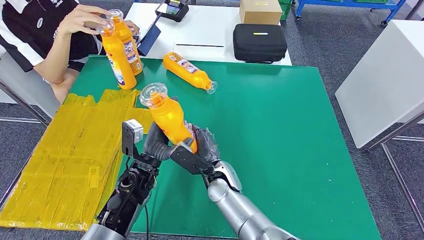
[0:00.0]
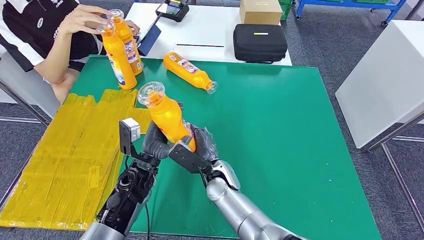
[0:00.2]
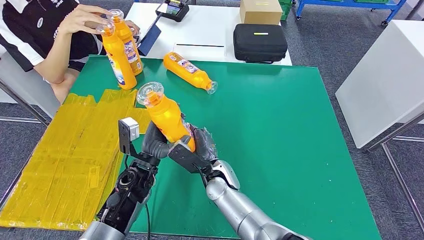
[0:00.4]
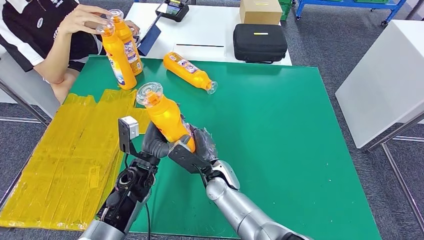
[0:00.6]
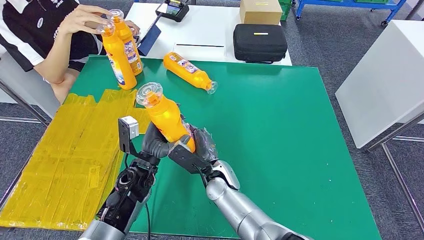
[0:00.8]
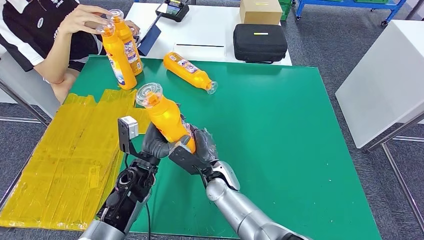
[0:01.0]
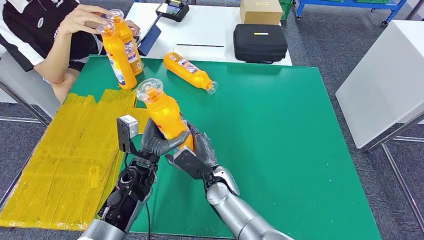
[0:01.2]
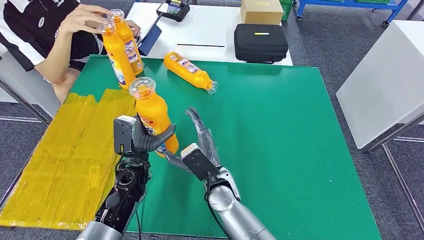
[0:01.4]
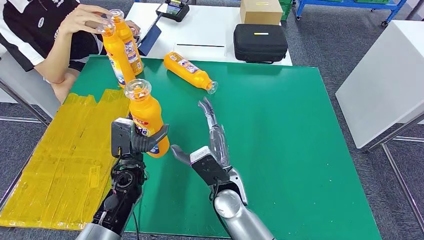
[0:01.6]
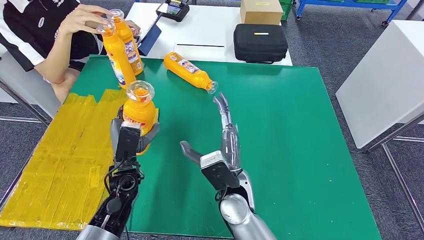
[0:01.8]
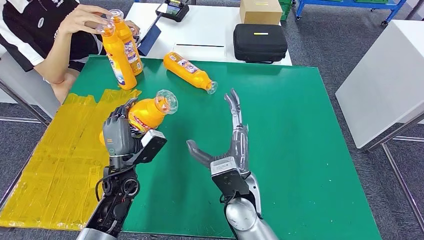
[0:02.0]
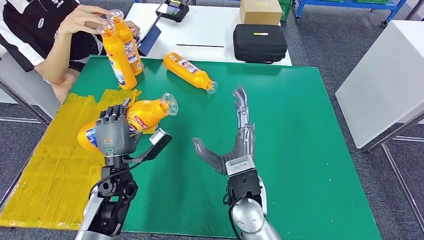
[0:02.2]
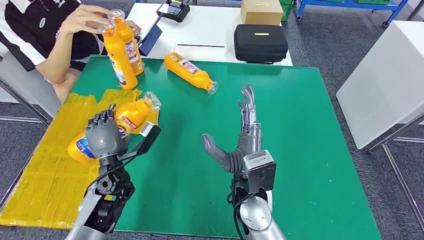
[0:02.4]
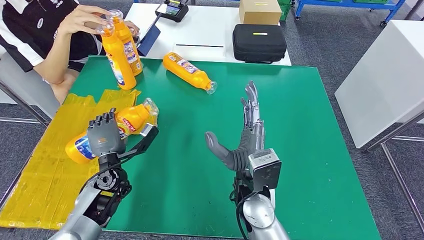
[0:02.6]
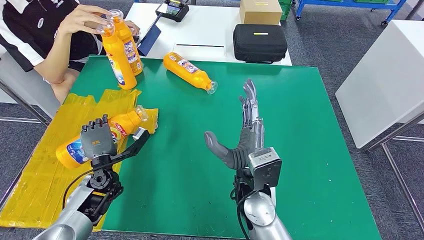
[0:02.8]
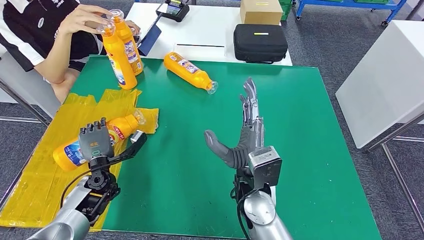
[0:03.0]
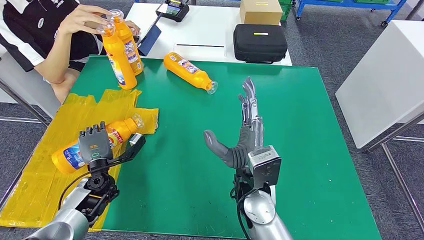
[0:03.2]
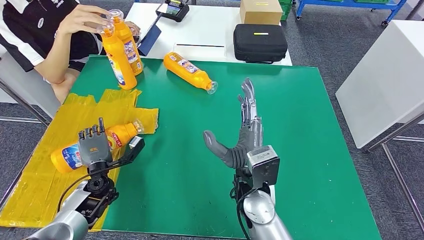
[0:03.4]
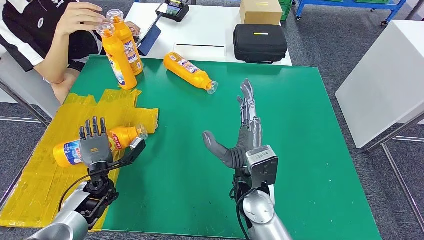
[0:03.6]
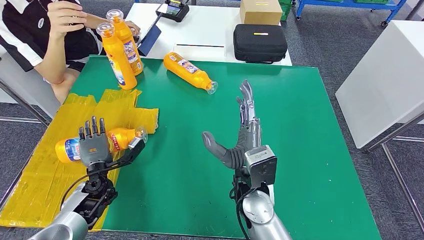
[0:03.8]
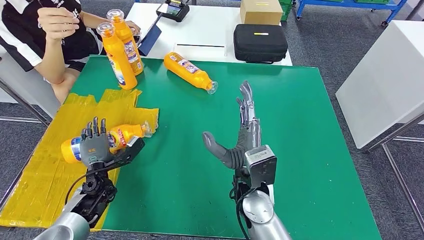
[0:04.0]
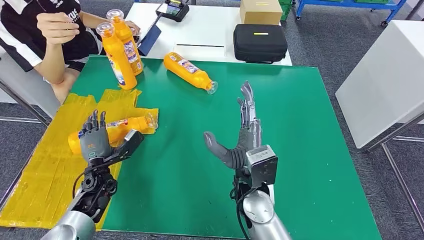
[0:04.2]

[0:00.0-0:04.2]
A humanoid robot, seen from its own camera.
Step, 0:00.0 to 0:04.0: Flip the fast-moving consumer goods bottle to the front side.
0:01.4 to 0:02.8: The left hand is displaced to the left by roughly 10 cm; the right hand heads upward and to the right, covering some 10 cm.

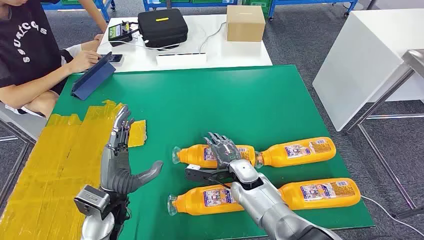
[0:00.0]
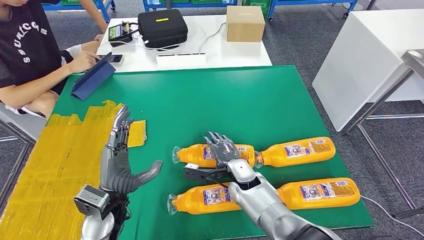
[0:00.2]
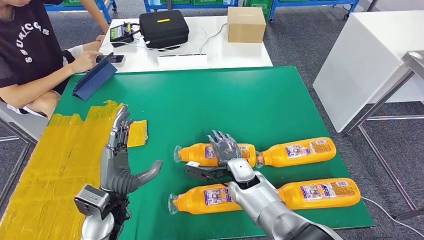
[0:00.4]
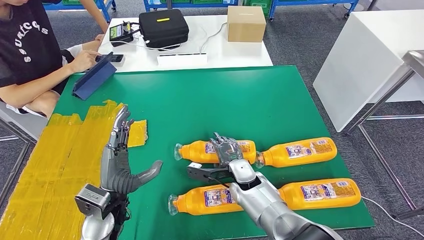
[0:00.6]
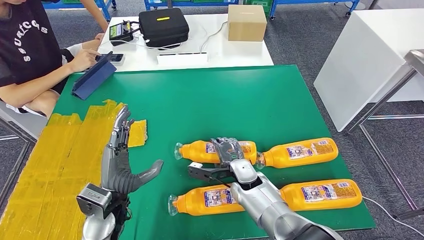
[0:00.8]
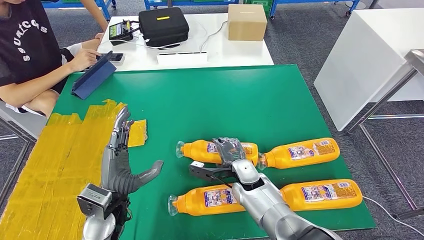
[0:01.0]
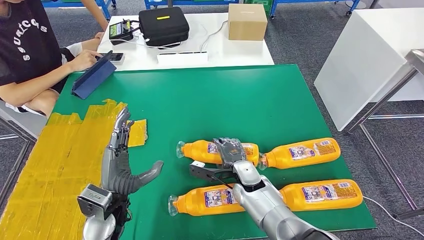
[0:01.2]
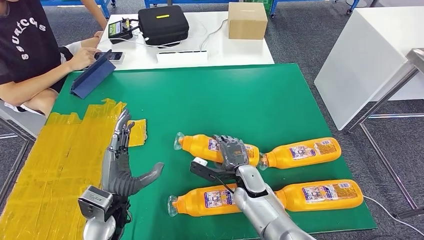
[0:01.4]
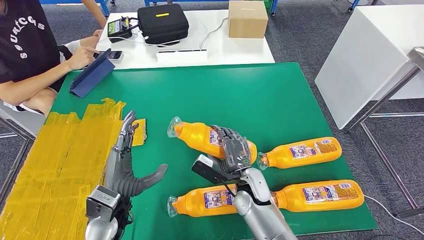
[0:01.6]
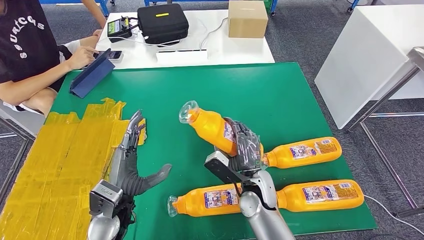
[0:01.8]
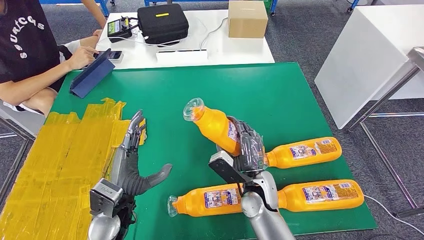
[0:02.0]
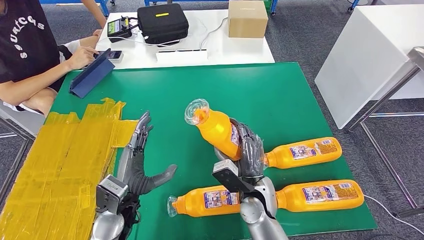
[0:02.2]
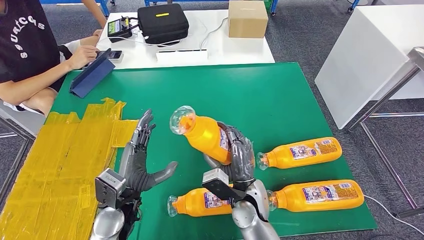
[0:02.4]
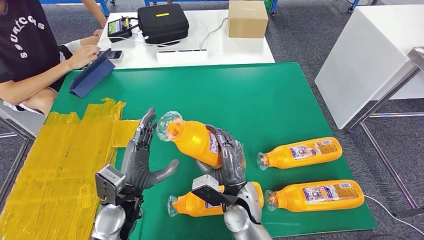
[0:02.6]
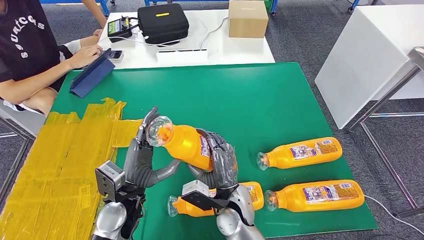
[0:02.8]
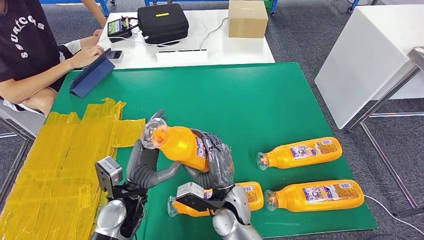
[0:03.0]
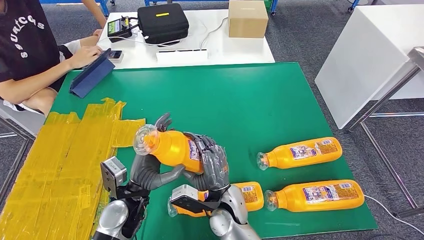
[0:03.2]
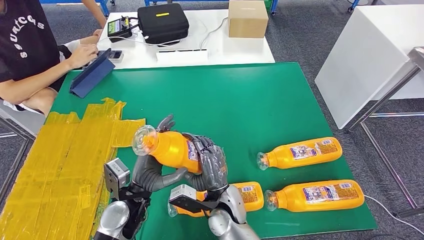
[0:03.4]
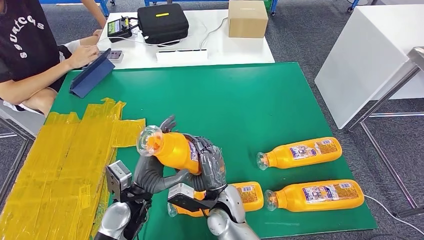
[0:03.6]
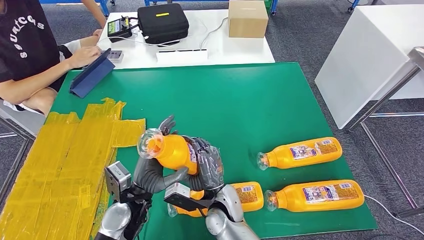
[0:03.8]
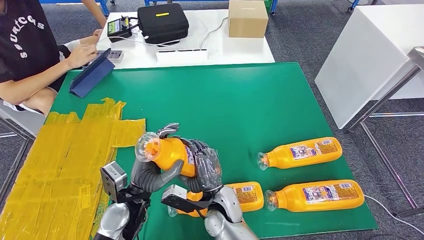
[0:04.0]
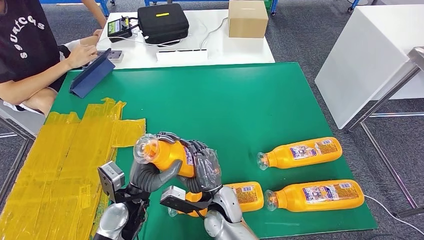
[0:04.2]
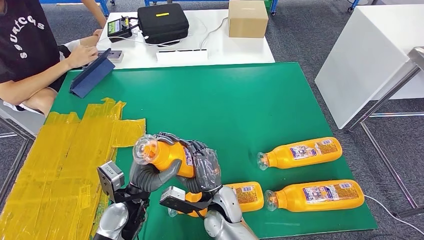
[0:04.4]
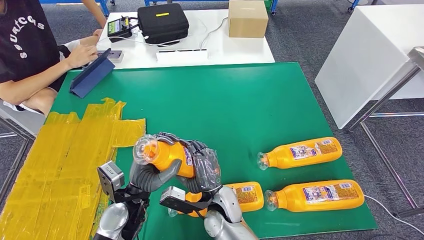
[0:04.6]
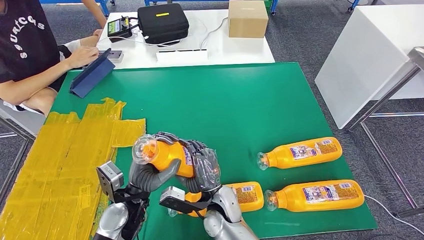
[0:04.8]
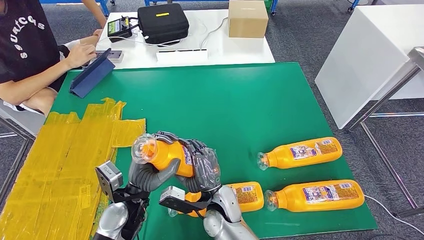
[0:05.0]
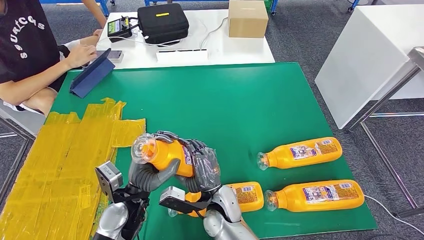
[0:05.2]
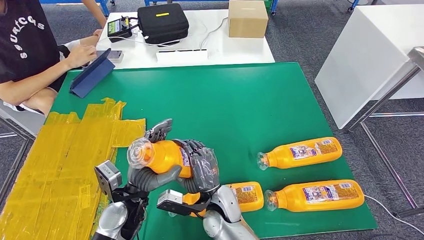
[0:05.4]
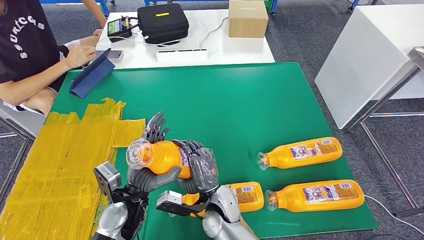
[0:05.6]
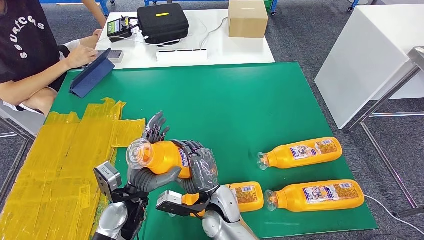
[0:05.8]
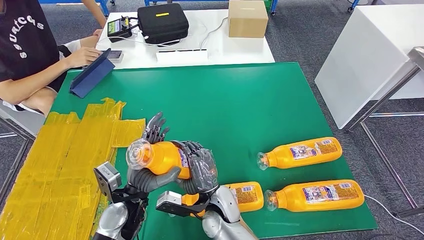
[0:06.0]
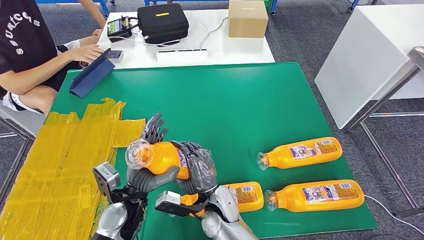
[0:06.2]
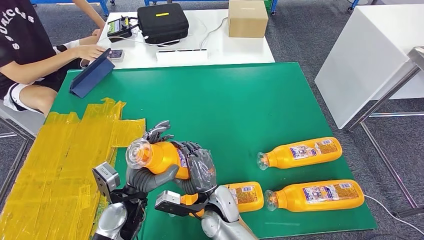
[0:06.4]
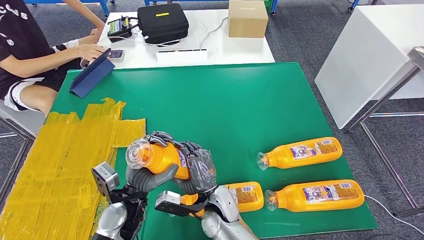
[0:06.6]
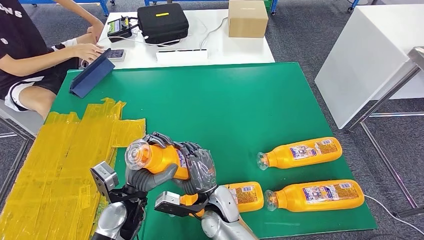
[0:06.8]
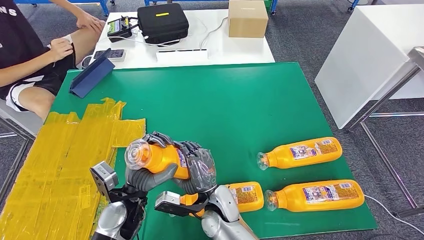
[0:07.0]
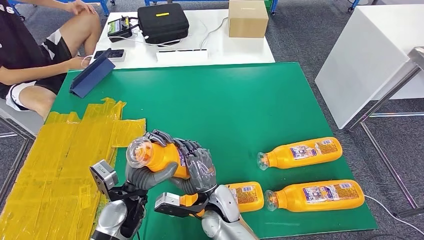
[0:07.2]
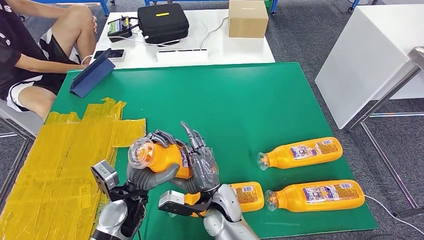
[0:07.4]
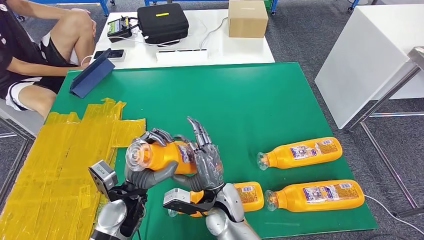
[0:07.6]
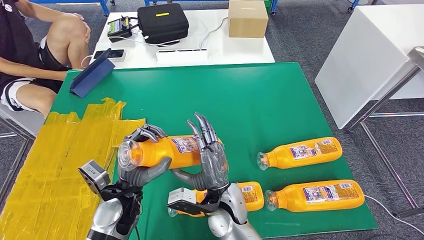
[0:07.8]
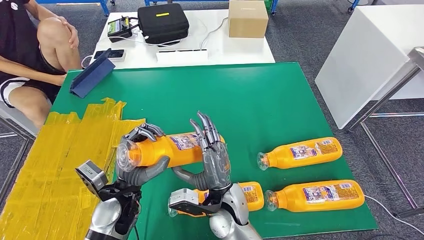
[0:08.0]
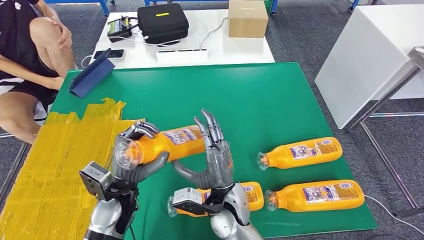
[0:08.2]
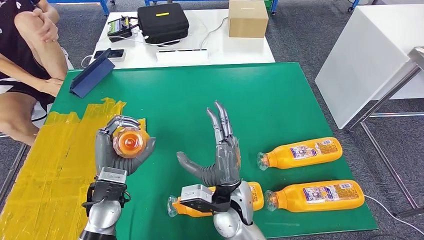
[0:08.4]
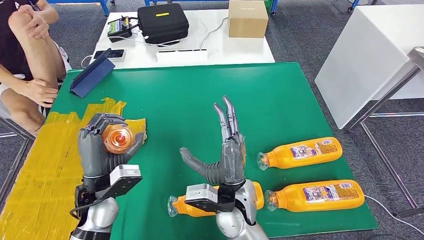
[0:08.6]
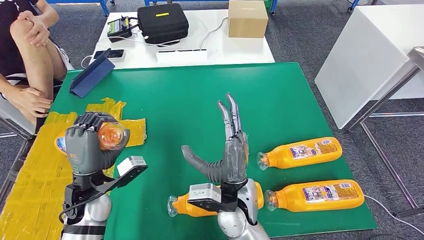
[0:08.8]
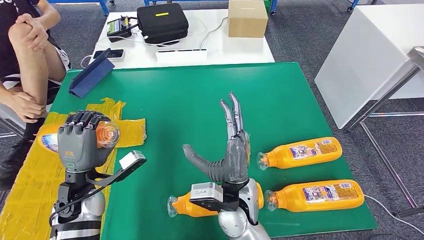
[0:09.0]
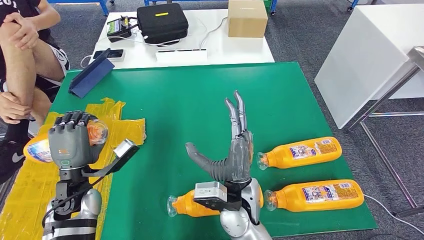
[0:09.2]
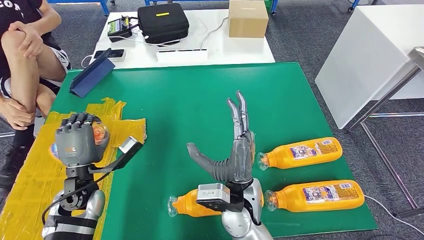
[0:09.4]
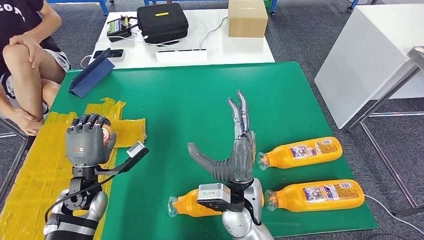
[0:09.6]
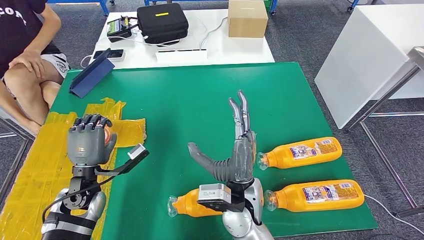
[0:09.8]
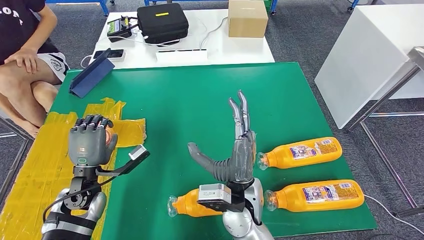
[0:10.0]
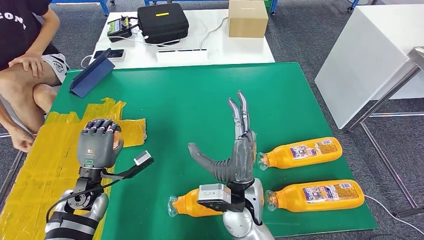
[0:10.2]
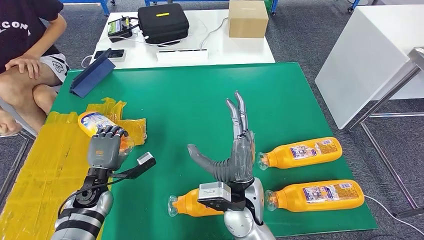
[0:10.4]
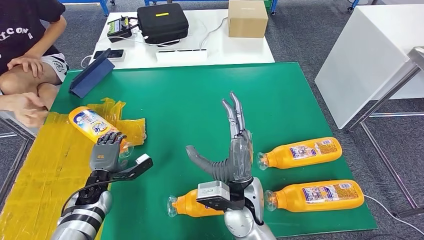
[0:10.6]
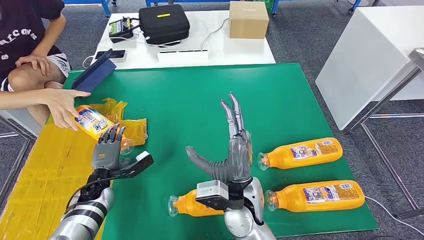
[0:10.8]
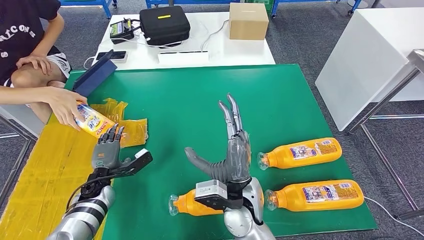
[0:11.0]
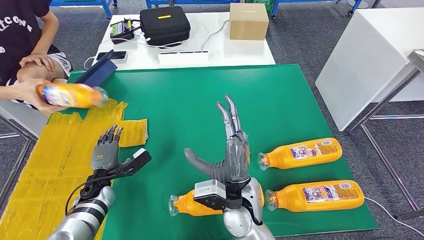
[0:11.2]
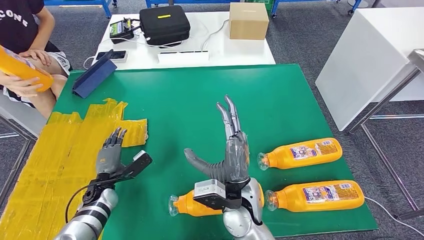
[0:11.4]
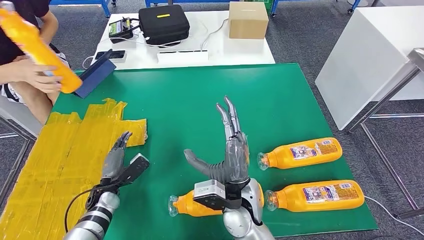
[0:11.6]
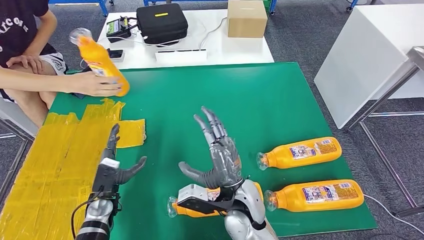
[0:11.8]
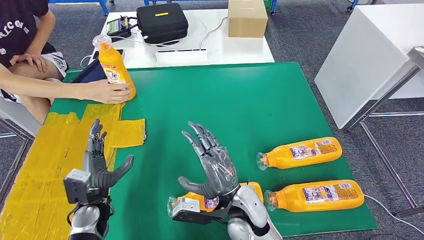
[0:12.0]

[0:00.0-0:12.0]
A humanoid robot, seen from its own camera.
Step, 0:00.0 to 0:02.6: Take the fast-moving consumer goods bottle from the table.
Step, 0:03.0 to 0:11.6: Flip the fast-moving consumer goods bottle to the front side.
0:01.6 to 0:03.0: The right hand travels to the left by approximately 5 cm.
0:03.0 to 0:04.4: The hands make only small movements.
0:04.4 to 0:06.0: Both hands stay put.
0:06.0 to 0:07.6: There are only small adjustments of the hands.
0:09.0 to 0:10.4: The left hand travels downward by approximately 10 cm.

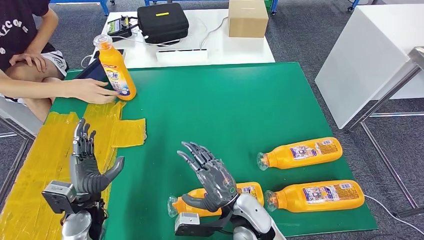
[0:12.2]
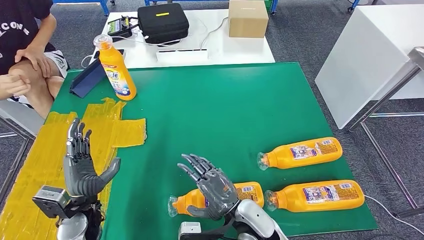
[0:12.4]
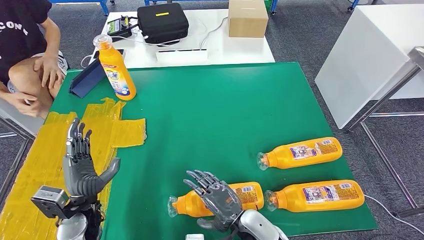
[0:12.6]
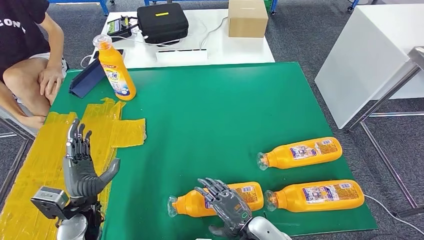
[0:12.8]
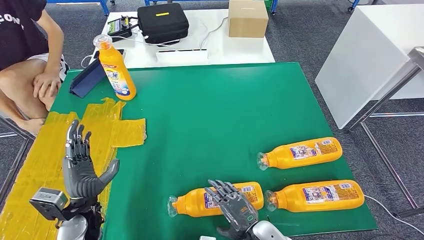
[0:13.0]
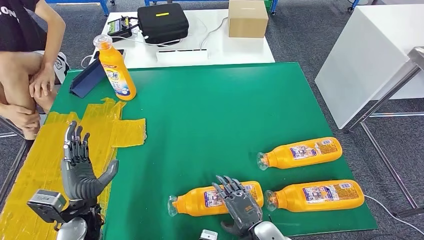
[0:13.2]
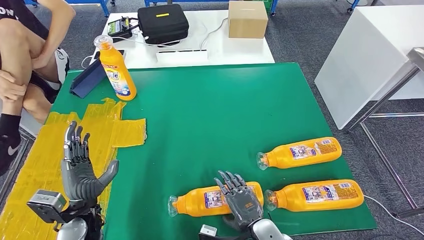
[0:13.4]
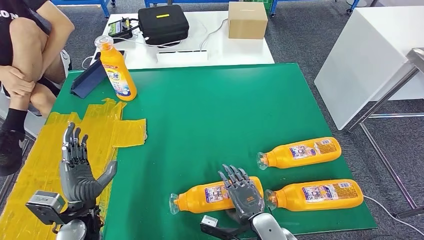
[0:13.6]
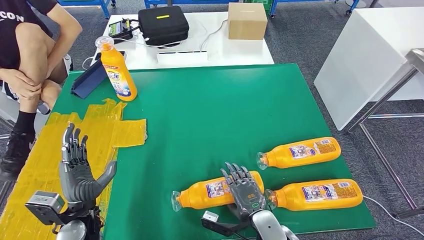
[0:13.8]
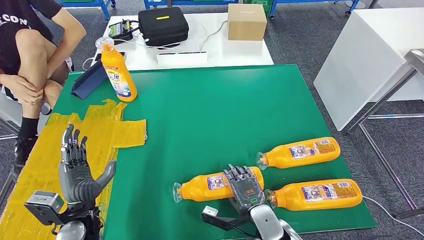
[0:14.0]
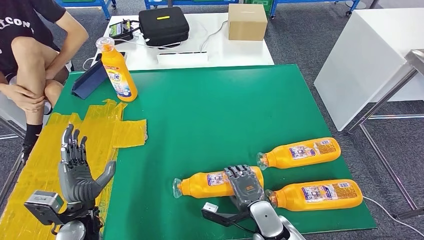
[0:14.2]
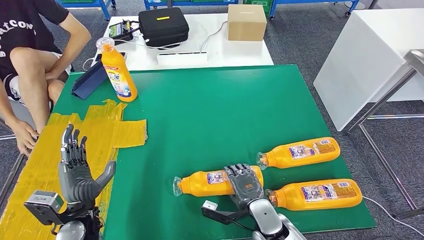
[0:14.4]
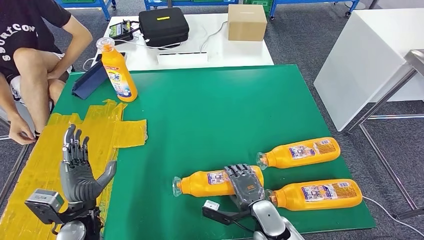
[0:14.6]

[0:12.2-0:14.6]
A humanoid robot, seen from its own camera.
0:12.2 to 0:13.4: The right hand heads downward and to the right, covering roughly 10 cm.
